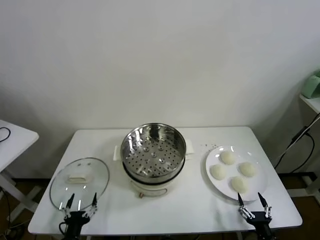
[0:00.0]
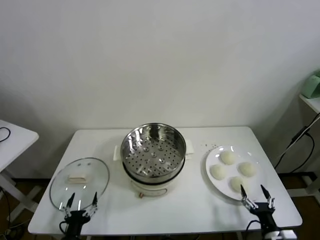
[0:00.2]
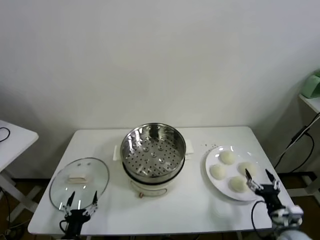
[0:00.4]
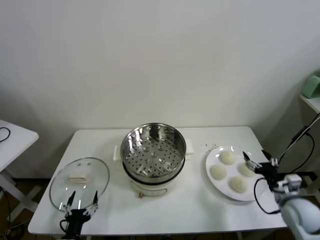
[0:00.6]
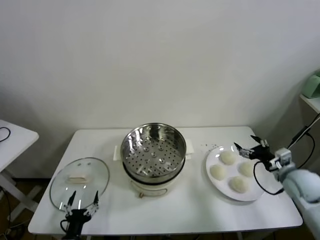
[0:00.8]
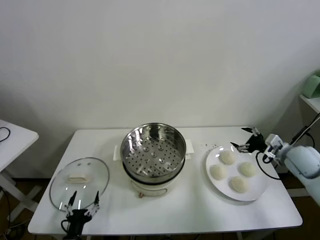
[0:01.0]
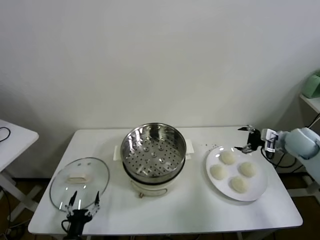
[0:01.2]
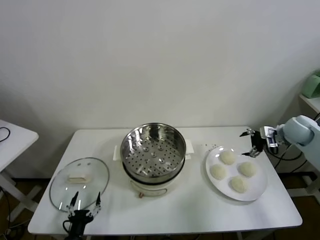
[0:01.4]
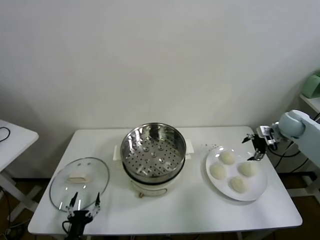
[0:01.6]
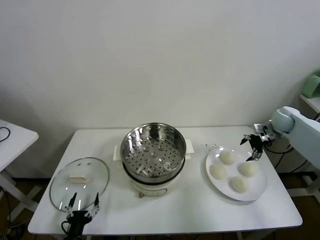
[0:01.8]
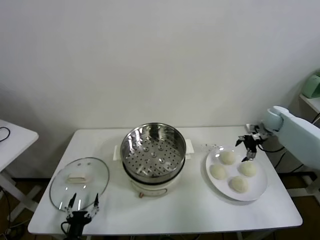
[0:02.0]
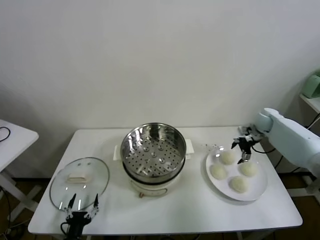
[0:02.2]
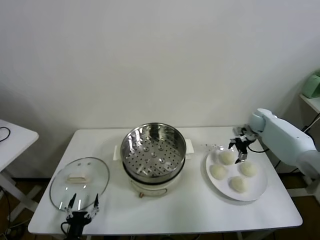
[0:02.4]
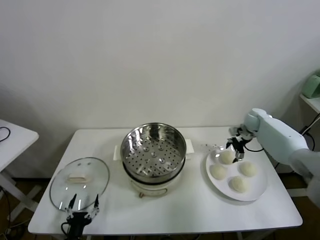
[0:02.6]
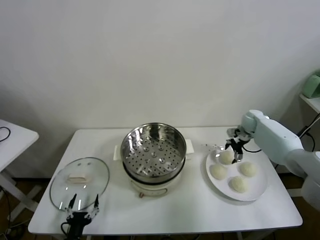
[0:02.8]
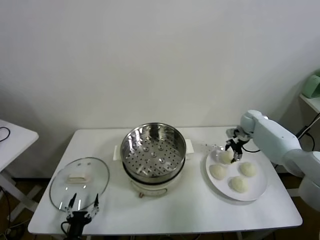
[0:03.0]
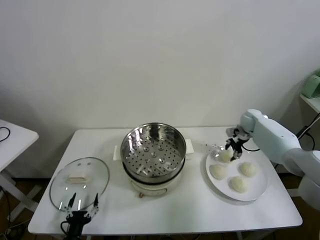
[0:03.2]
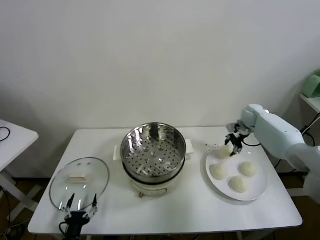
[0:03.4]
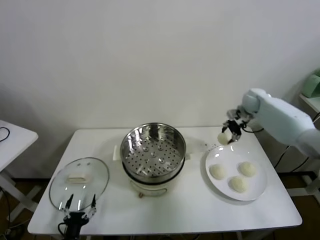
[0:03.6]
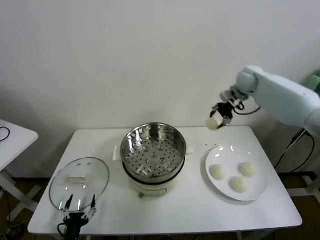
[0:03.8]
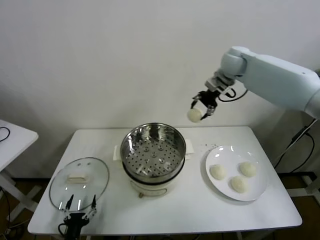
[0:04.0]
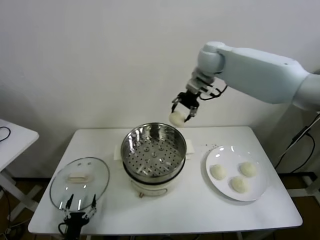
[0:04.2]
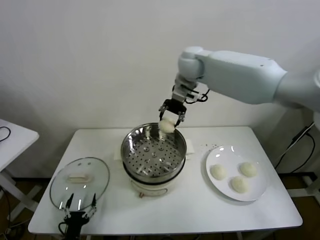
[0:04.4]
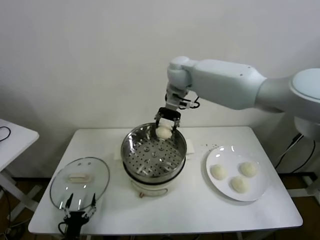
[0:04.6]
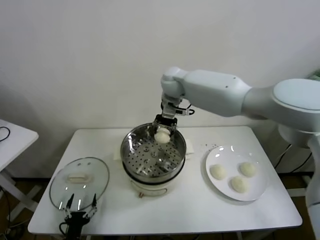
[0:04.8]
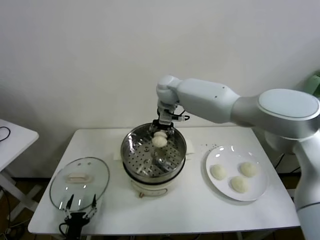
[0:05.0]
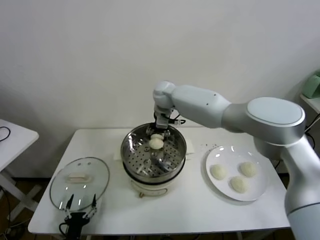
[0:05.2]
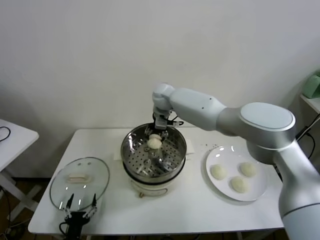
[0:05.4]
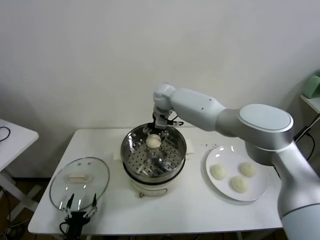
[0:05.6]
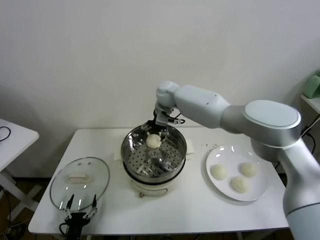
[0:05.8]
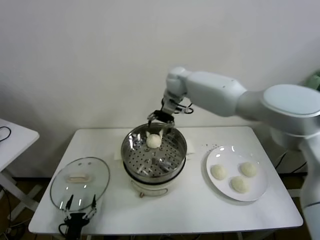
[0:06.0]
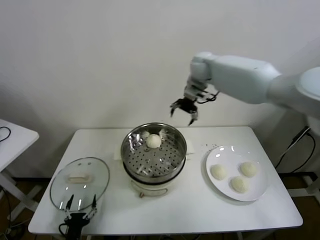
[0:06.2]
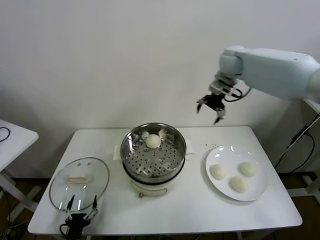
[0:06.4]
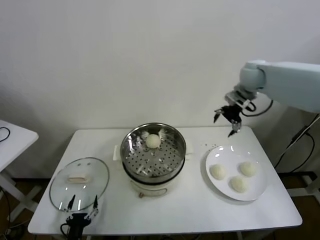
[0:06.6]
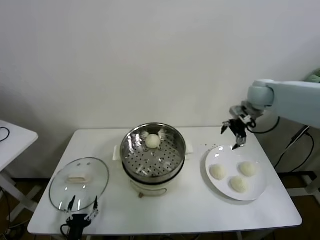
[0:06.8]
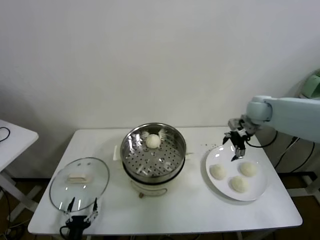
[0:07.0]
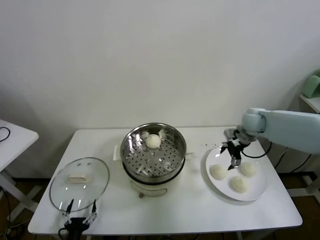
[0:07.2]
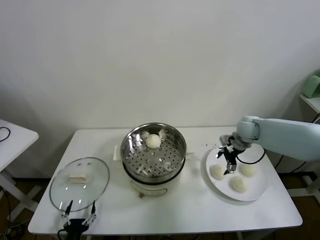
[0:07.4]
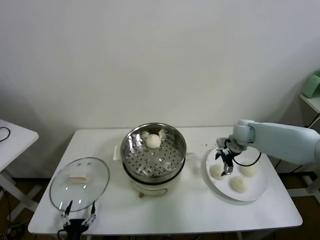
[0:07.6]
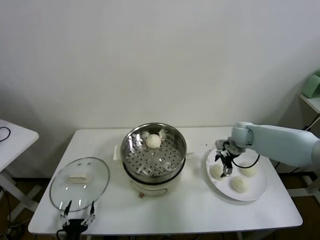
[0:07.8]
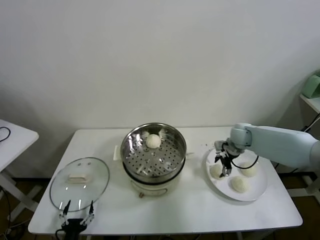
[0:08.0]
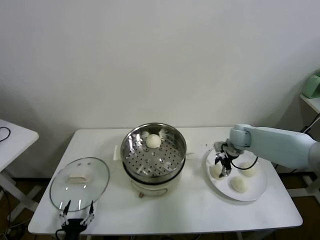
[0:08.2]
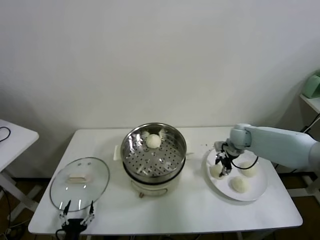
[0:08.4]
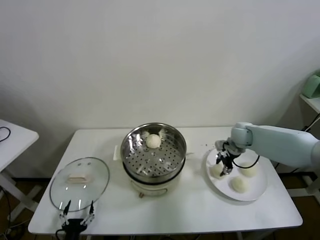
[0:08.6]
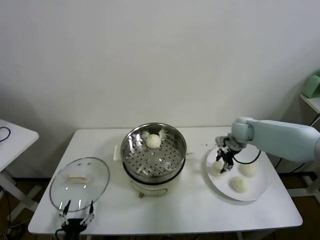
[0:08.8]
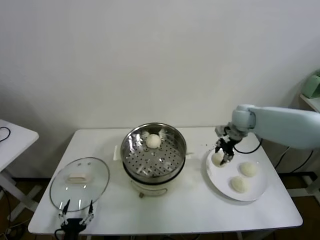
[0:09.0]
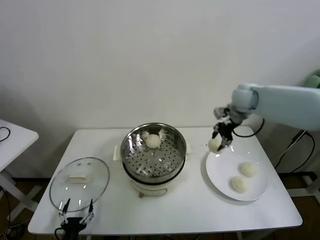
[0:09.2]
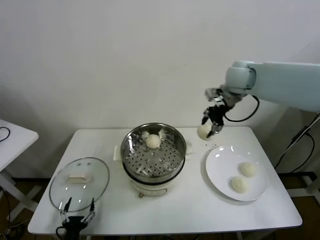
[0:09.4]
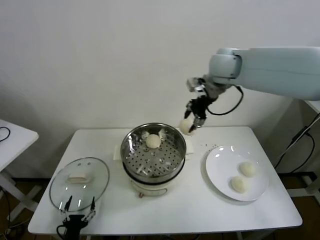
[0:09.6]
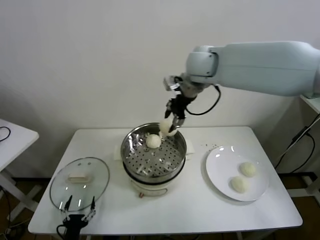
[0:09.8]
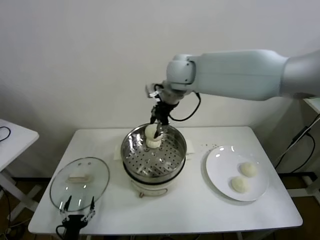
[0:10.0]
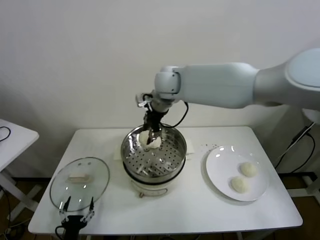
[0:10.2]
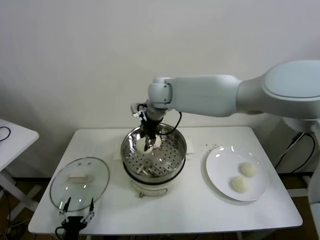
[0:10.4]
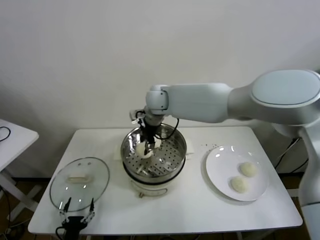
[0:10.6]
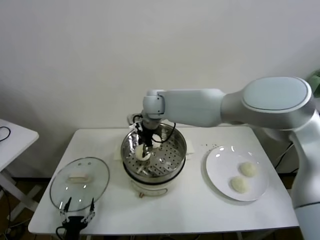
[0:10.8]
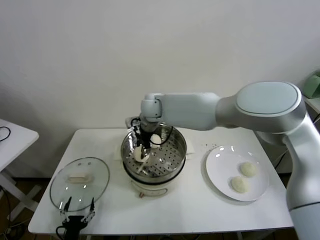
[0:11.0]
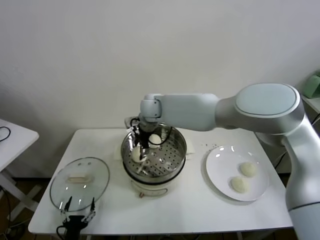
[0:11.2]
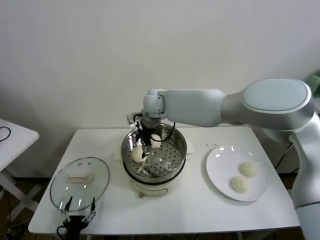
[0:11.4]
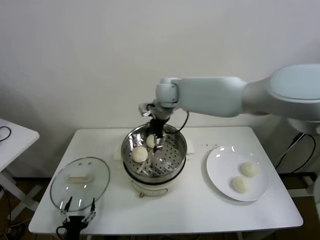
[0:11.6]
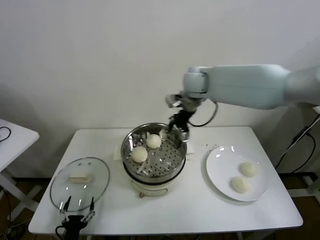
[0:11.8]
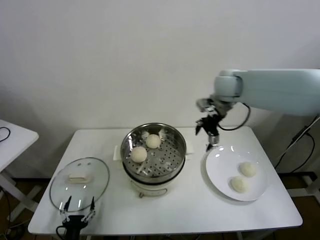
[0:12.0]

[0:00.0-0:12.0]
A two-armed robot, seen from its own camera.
Task of the whole recording: take steamed baozi put them in steamer.
Step, 0.0 to 3.0 s: Grasp the baozi in the plate with right gripper.
Step, 3.2 to 5.6 s: Place the baozi on the steamer with right gripper.
Step, 5.8 to 8.2 s: Grasp the baozi in the plate with right gripper.
Step, 8.4 to 11.2 s: Place the baozi on the steamer with right gripper.
1.6 to 3.0 s: The right gripper travels to the left, forward and downward by approximately 15 cm, and closes its fingers.
3.0 to 4.4 s: The right gripper is displaced to the left and upward by about 40 cm.
4.4 to 6.0 s: The right gripper travels downward and back again, roughly 15 cm each way, and opens its fingers.
6.0 to 7.6 s: The right gripper is displaced to the right, downward and backward by roughly 30 cm.
7.6 to 9.0 s: The right gripper is displaced upward by about 10 cm, and closes its fingers.
9.0 to 10.4 s: The right gripper shifts some 30 cm to the left.
10.4 to 12.0 s: The right gripper travels to the right by roughly 25 cm, and opens.

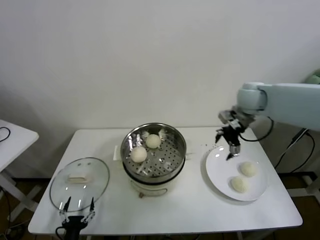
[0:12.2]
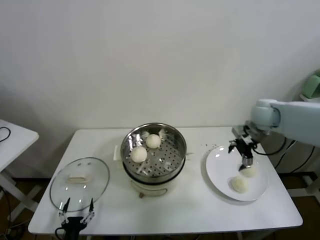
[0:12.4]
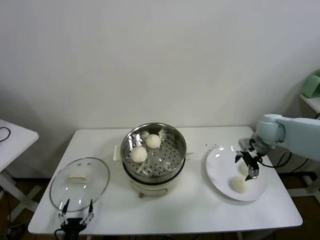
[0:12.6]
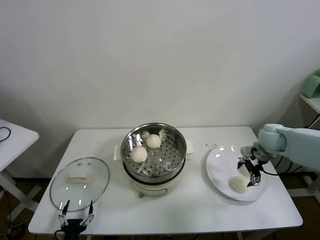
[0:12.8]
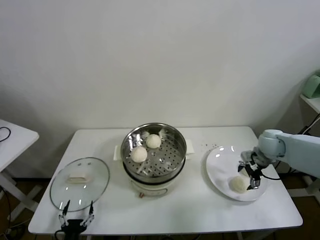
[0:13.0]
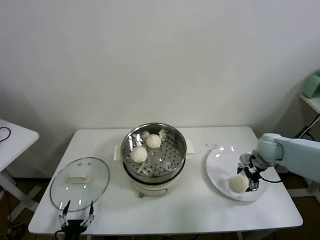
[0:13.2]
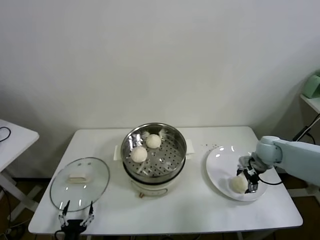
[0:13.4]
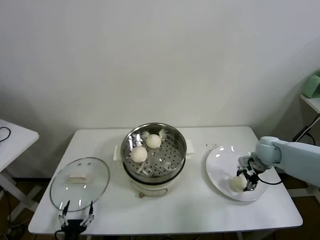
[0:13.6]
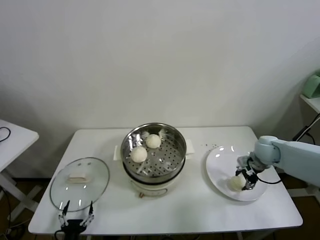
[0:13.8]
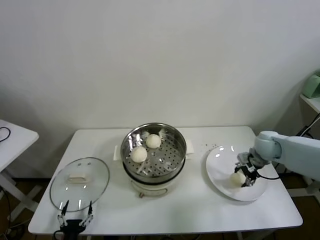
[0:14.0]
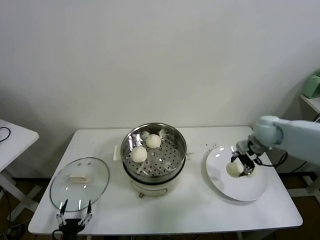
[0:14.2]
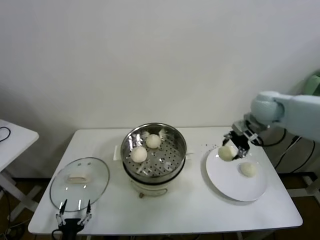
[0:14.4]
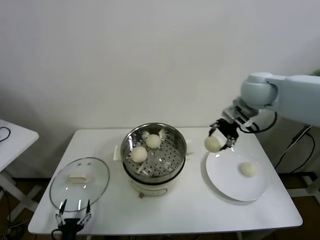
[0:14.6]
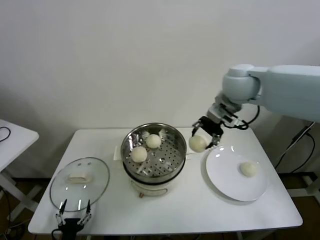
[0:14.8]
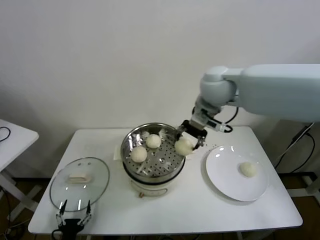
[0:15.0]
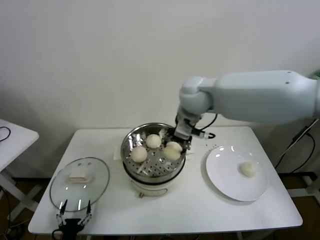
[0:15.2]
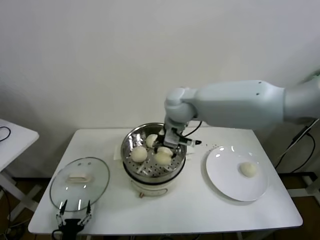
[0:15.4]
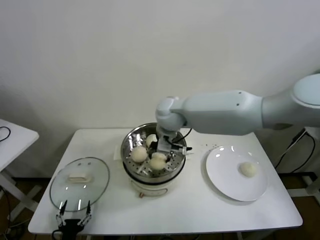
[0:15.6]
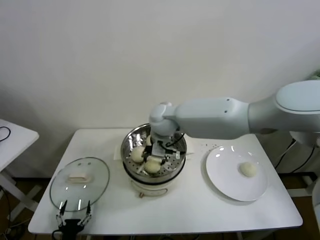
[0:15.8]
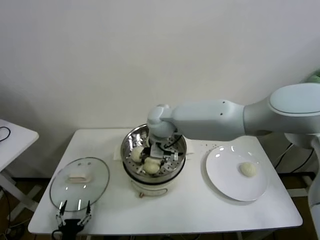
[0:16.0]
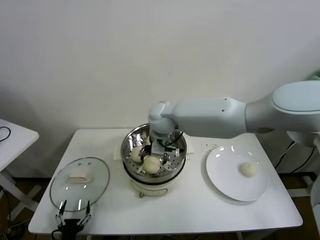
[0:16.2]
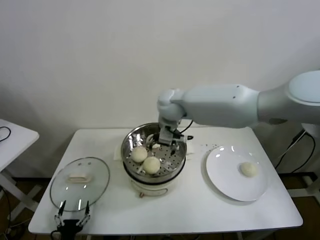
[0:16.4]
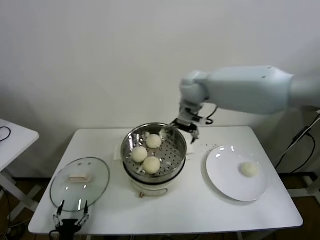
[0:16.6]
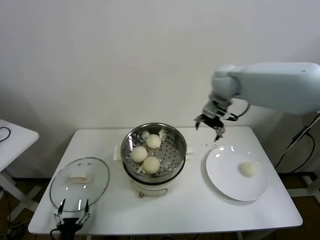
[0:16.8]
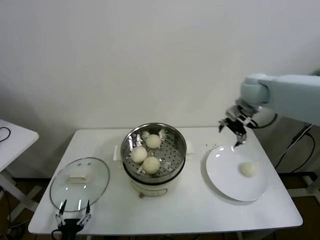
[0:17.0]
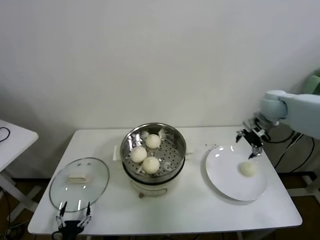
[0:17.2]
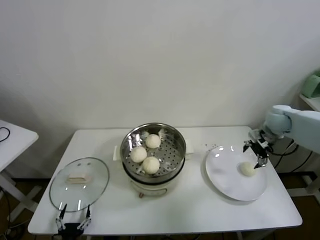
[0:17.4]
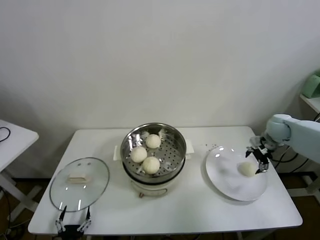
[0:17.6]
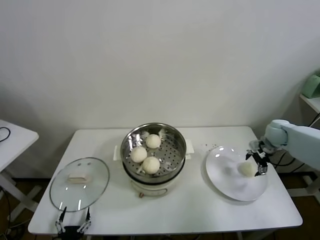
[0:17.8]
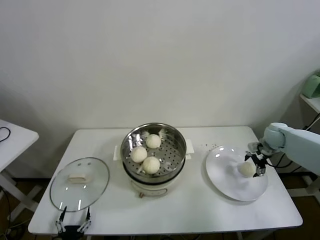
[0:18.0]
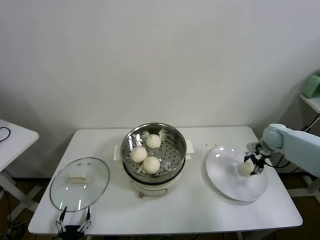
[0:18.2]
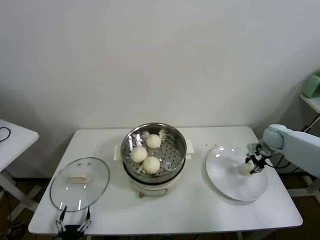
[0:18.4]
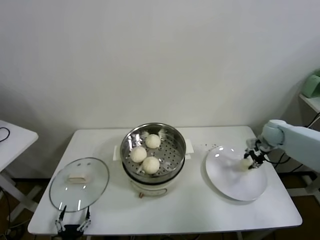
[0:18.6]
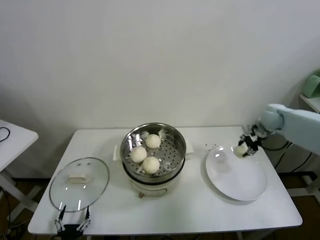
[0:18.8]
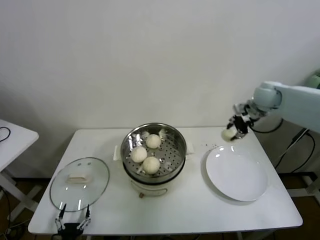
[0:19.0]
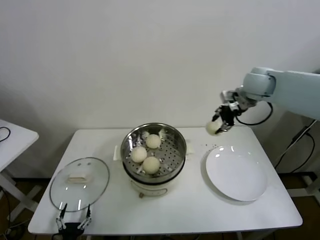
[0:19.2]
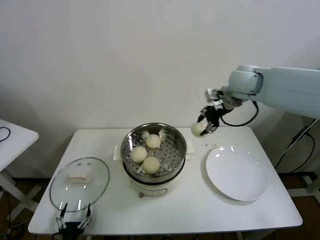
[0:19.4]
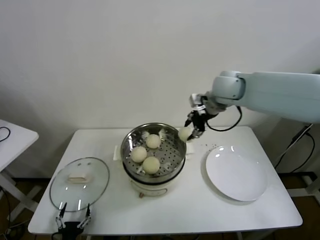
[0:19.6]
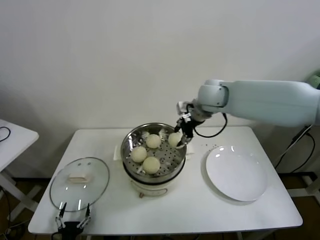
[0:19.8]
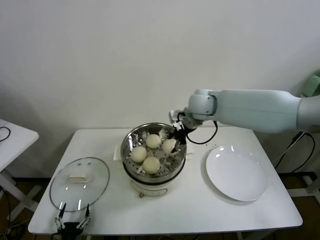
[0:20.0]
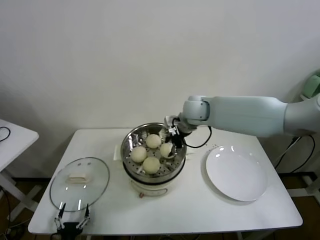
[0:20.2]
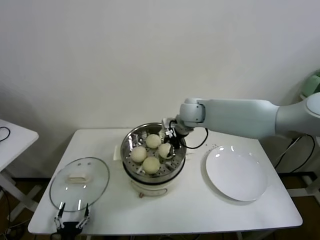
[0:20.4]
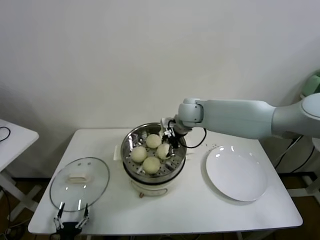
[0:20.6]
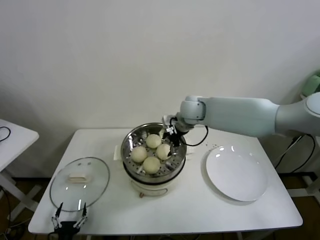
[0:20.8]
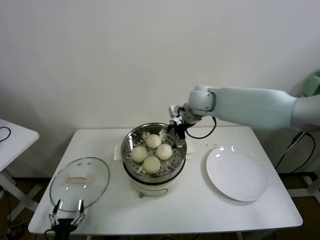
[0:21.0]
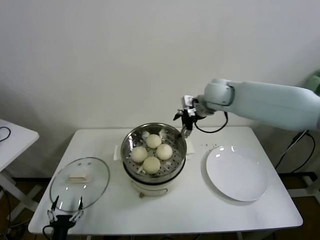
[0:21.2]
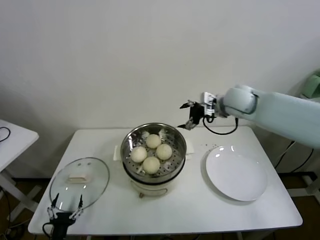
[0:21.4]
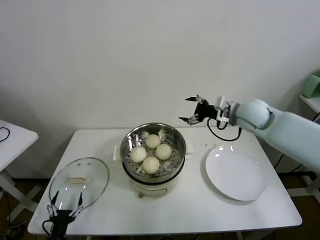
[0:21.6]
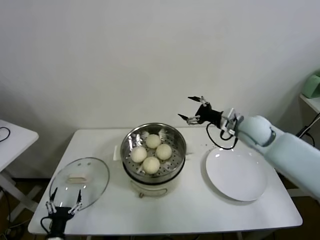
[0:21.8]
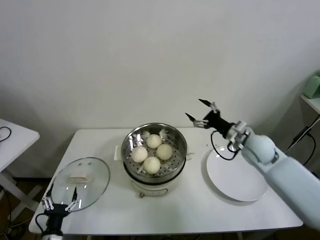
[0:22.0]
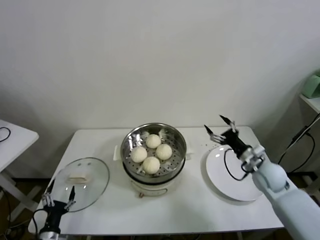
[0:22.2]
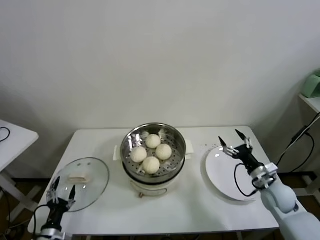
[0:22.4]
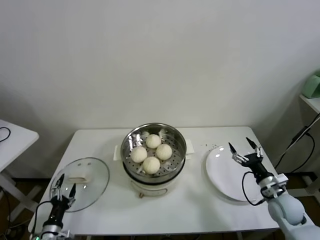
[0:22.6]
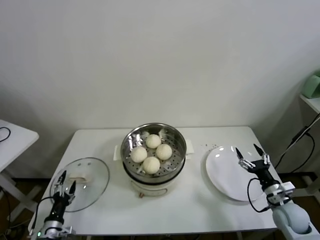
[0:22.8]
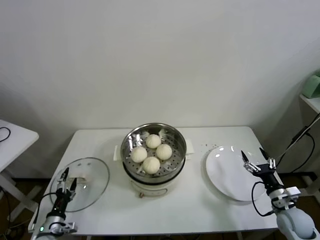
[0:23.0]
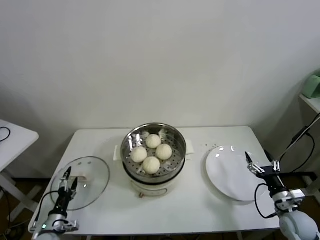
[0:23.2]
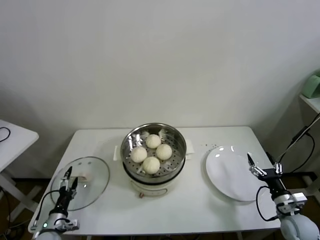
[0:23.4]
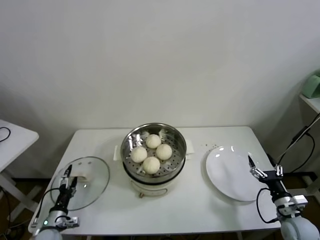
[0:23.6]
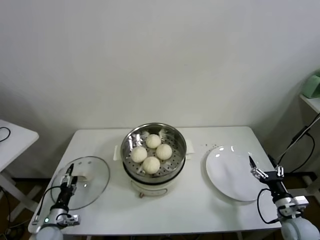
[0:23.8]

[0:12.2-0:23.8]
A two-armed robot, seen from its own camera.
Task of the whole recording: take steamed baozi put them in steamer.
Step, 12.2 to 13.6 s: Grasp the baozi in the plate with right gripper.
Step, 13.8 to 16.0 s: Place the baozi on the steamer with right gripper.
Step, 16.2 to 18.4 s: Grasp the baozi in the plate with right gripper.
Step, 18.6 to 20.6 s: Place the baozi on the steamer with right gripper.
12.2 to 13.6 s: The right gripper travels downward and to the right by approximately 20 cm, and closes up.
13.6 to 15.0 s: The right gripper heads upward and to the left, covering some 35 cm.
15.0 to 16.6 s: The right gripper moves forward, approximately 5 cm, moves about 15 cm to the left and comes back, and opens up.
16.6 to 18.0 s: The right gripper travels to the right and downward by about 40 cm.
18.0 to 19.4 s: The right gripper goes approximately 35 cm upward and to the left, and closes up.
19.4 to 21.0 s: The right gripper is displaced to the left and downward by approximately 10 cm, and opens up.
21.0 to 22.4 s: The right gripper heads downward, to the right and backward, covering roughly 40 cm. Meanwhile the left gripper shifts roughly 5 cm forward.
22.4 to 23.8 s: The right gripper heads backward, downward and to the right, covering approximately 10 cm. Meanwhile the left gripper is displaced forward by roughly 5 cm.
